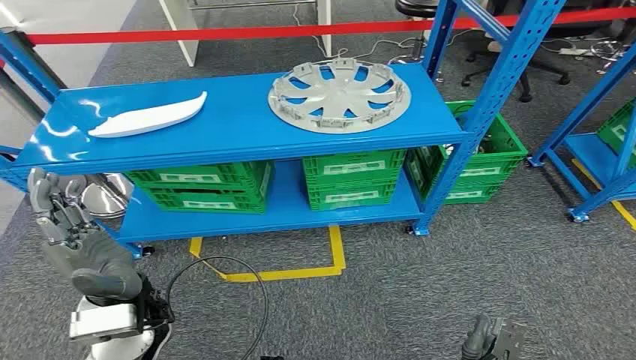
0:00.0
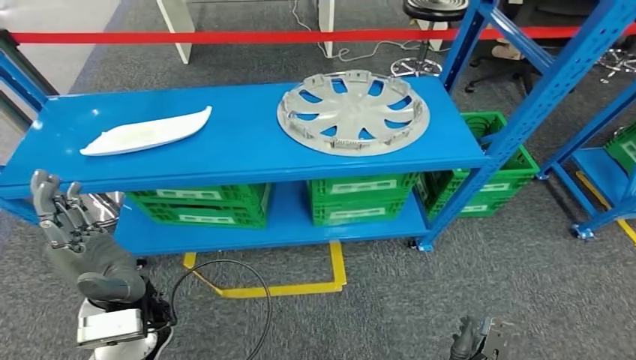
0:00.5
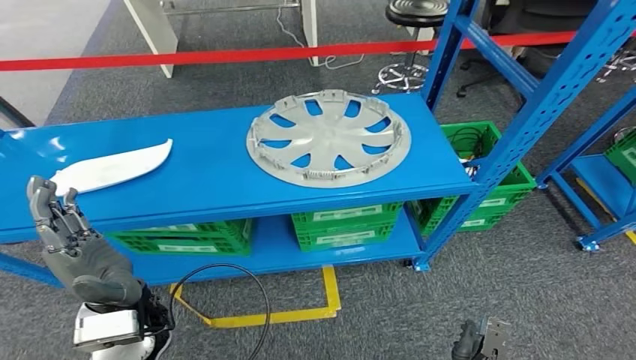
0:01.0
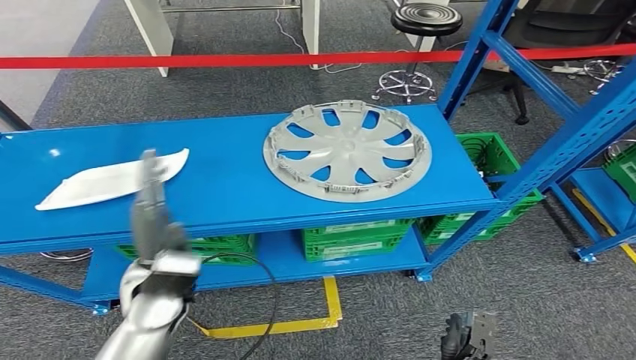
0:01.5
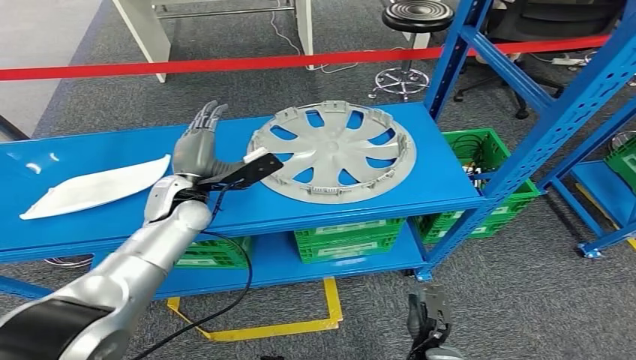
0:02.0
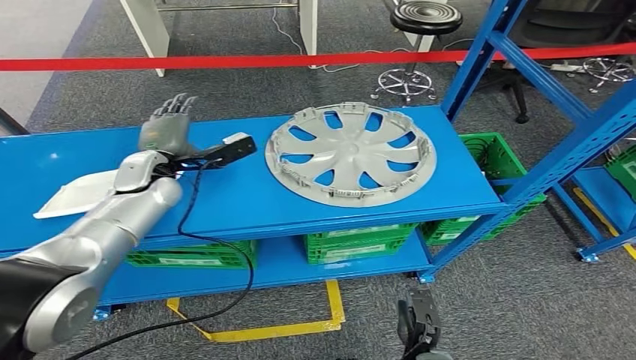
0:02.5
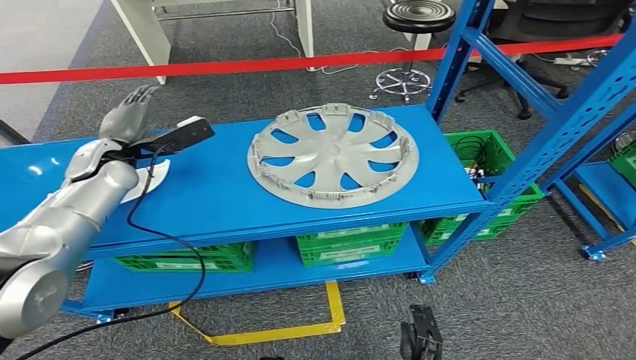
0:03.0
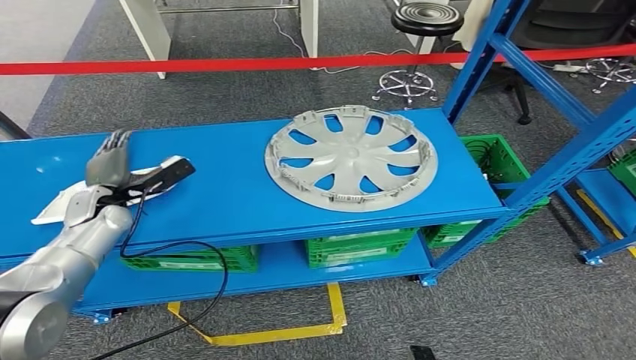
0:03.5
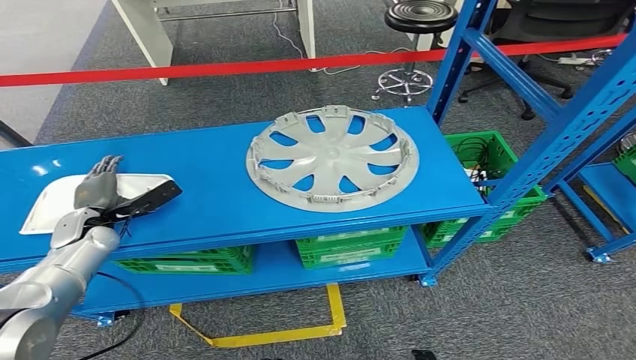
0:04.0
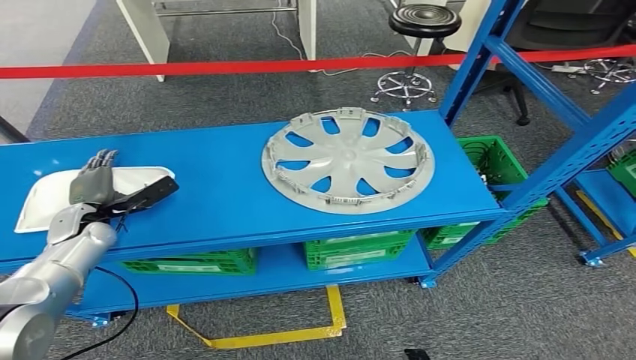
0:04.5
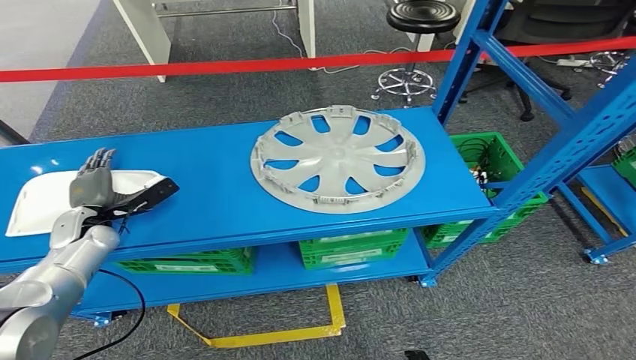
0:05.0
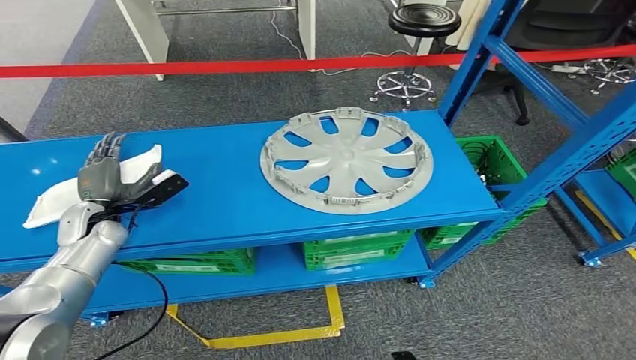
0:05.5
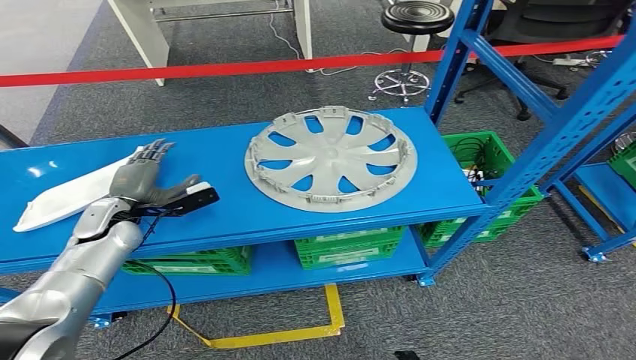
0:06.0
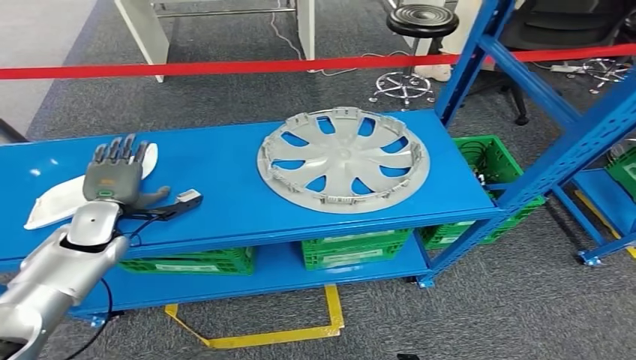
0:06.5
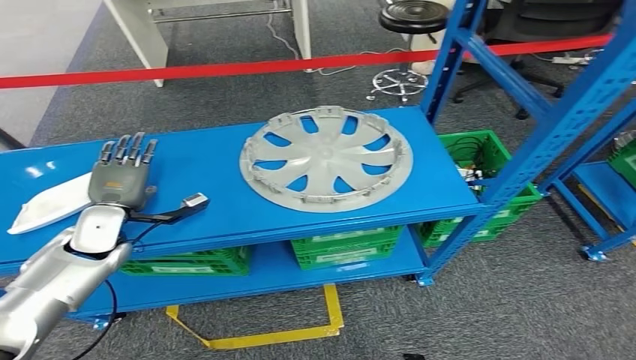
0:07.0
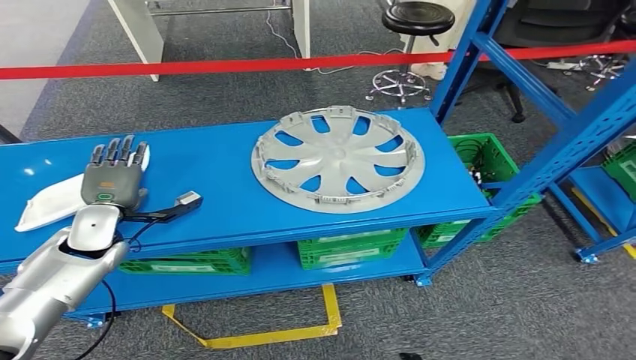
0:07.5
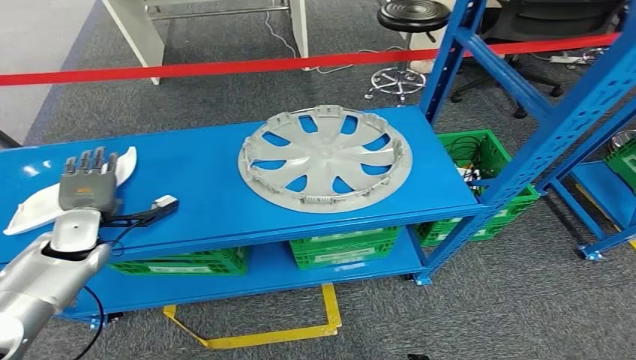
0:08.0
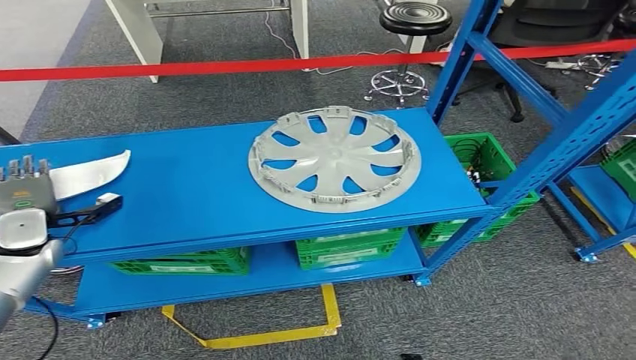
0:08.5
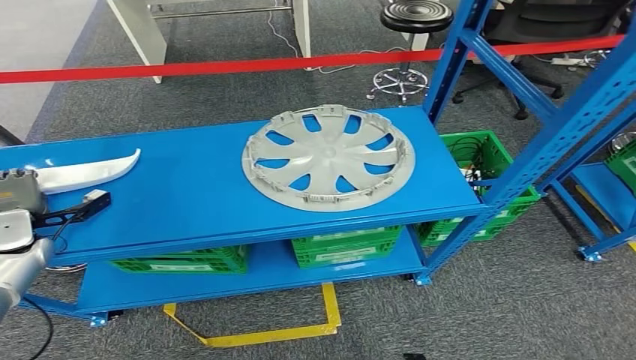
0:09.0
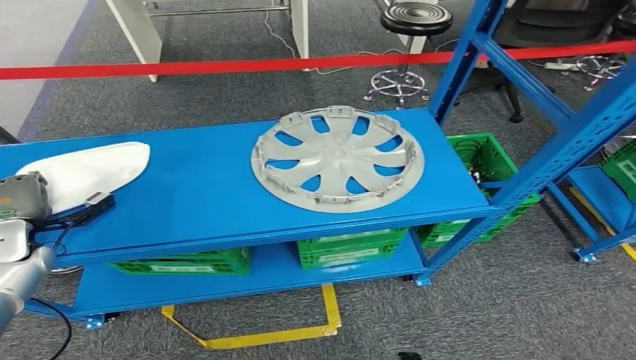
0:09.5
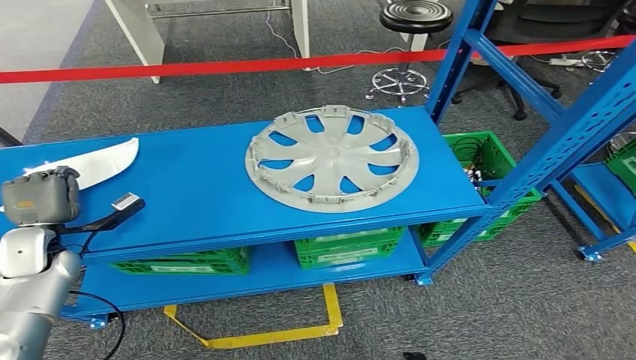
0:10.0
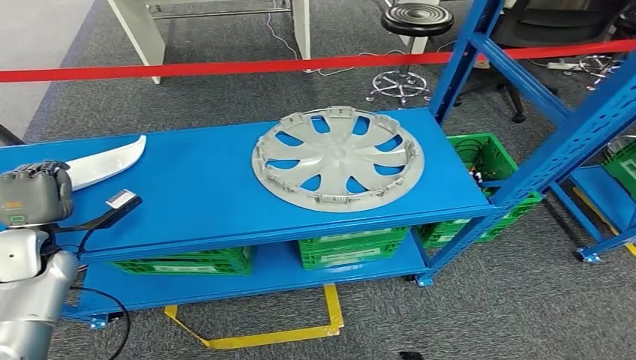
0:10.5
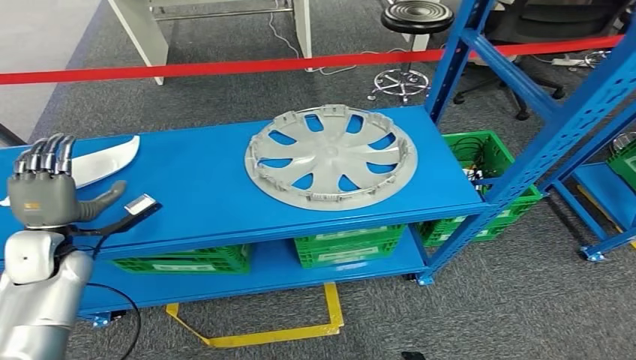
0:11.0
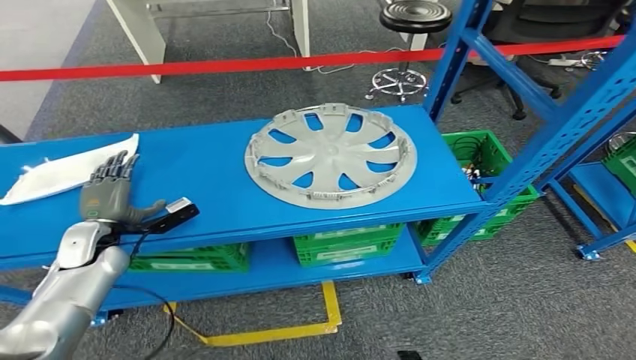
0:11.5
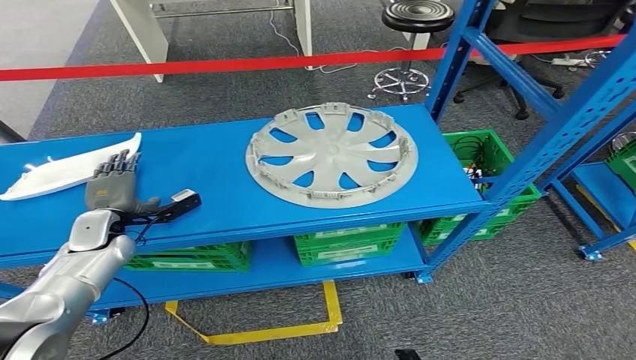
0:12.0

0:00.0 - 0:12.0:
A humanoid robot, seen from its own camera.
0:04.0 - 0:06.0: The left hand shifts by about 5 cm.
0:08.0 - 0:10.0: The left hand shifts roughly 5 cm to the left.
0:10.0 - 0:12.0: The left hand heads to the right, covering about 5 cm.

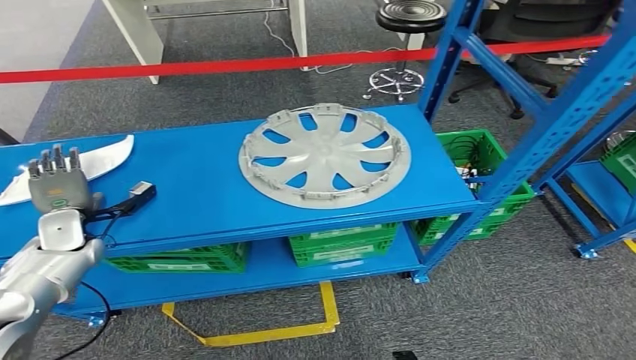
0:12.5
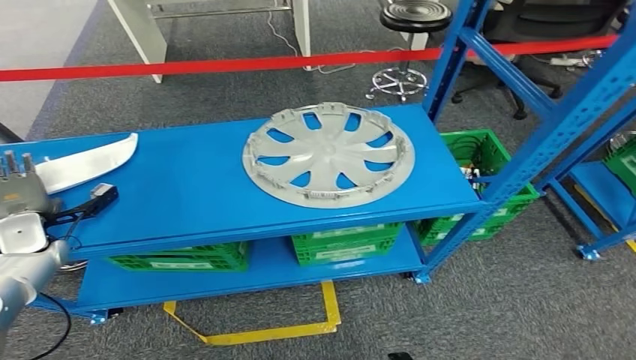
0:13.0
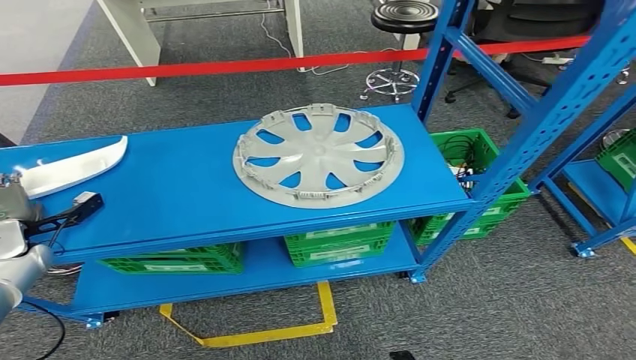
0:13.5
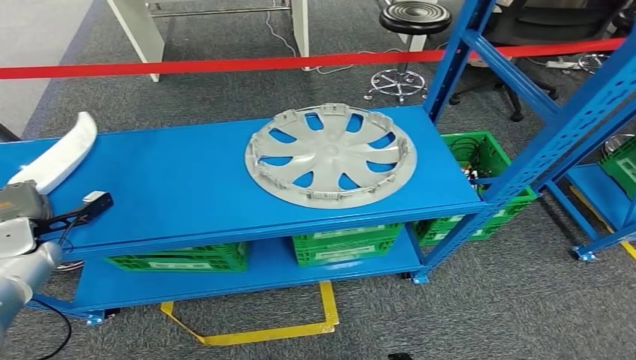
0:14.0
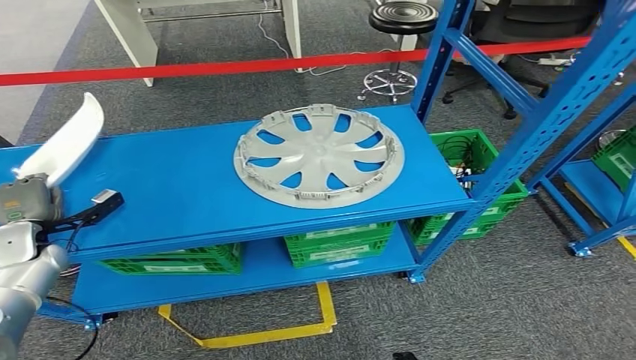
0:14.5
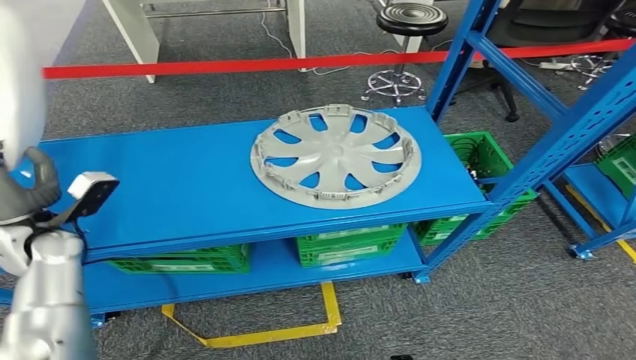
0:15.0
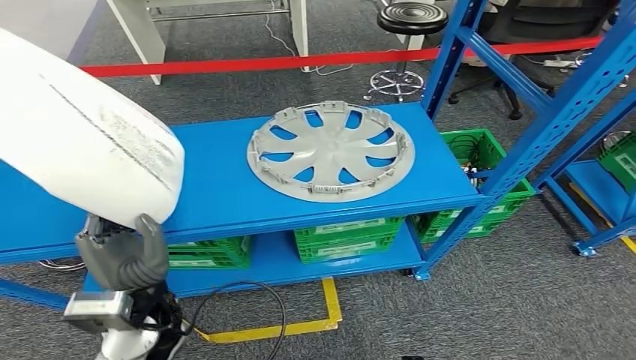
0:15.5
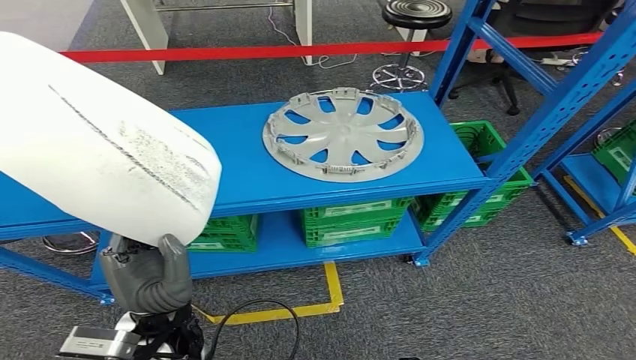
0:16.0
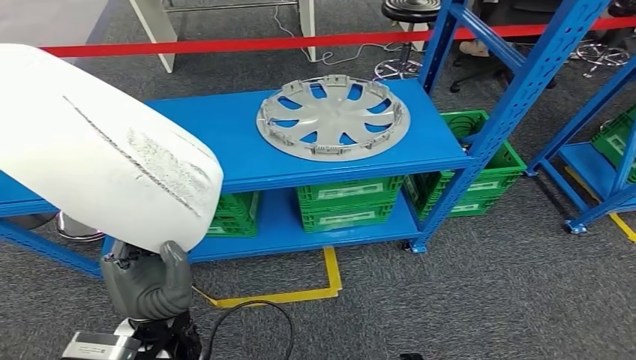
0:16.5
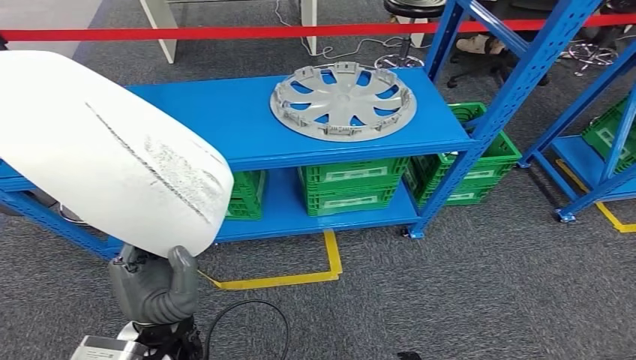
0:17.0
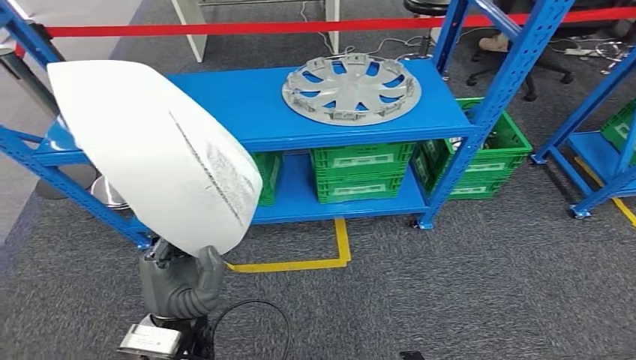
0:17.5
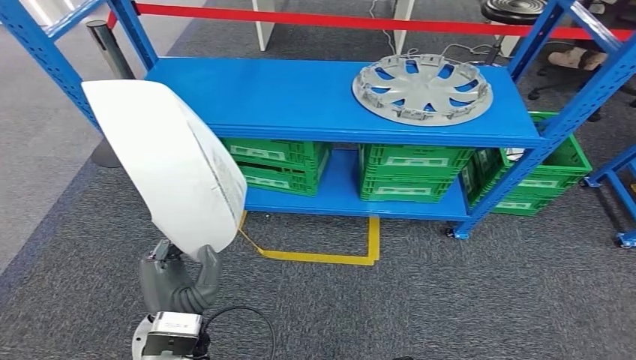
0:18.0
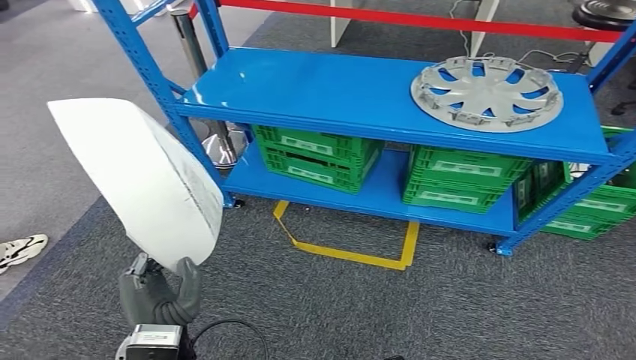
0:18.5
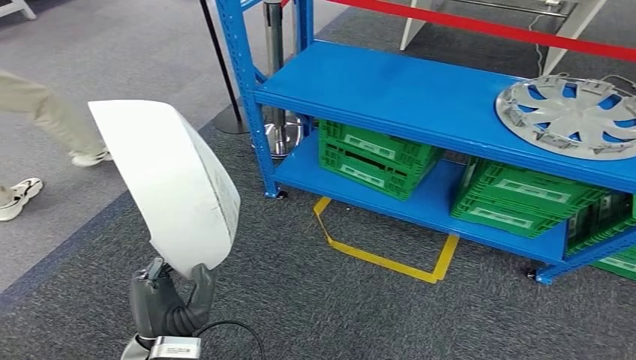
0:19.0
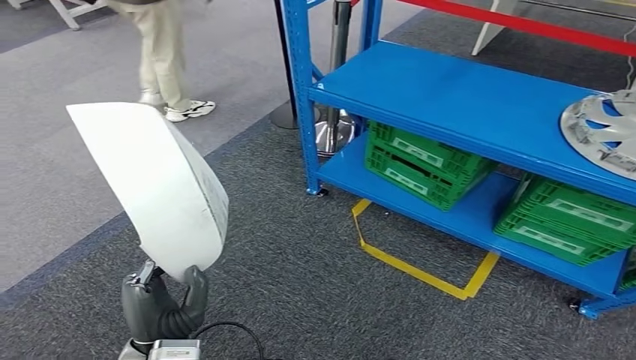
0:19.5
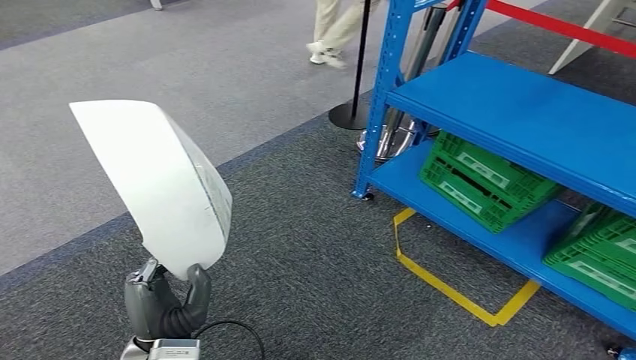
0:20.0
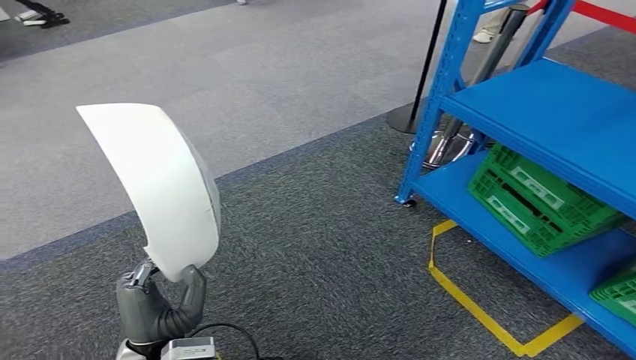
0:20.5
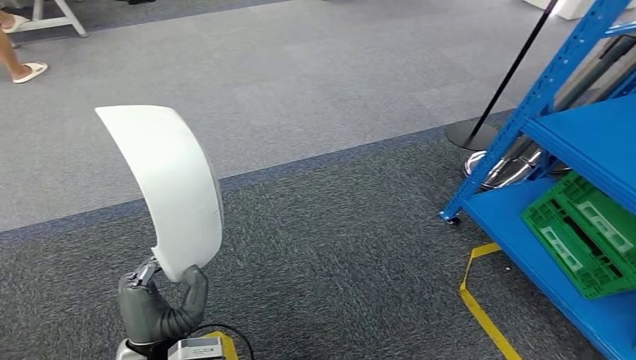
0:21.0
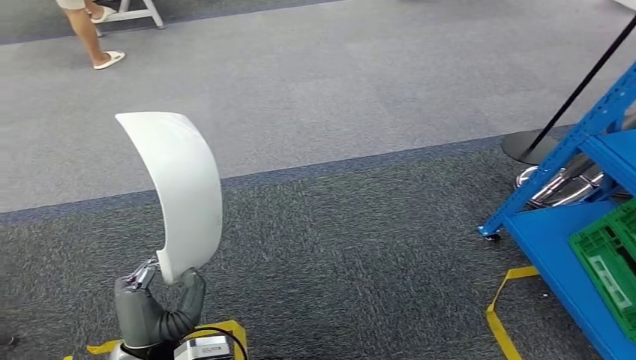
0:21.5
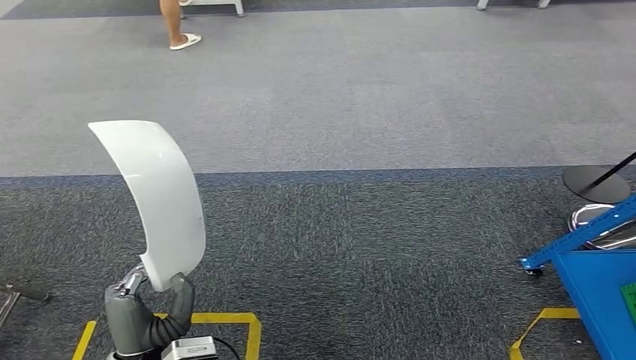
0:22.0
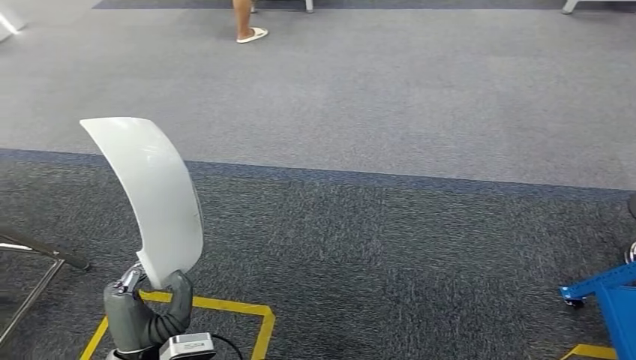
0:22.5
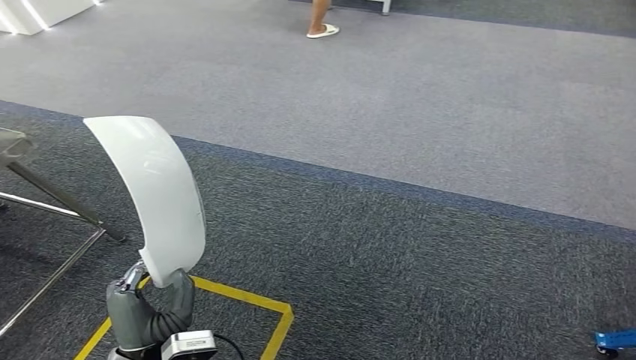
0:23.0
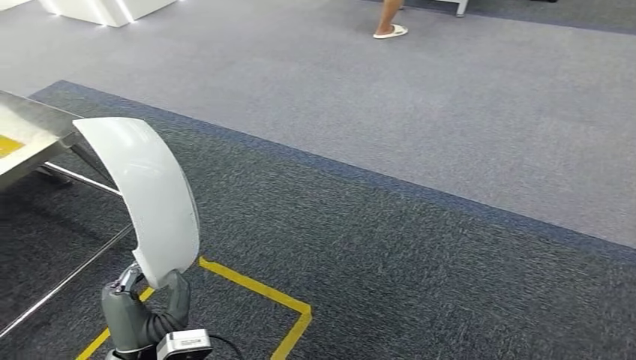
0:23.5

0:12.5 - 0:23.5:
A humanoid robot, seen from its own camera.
Step, 0:12.5 - 0:15.5: Pick up the small component from the shelf.
